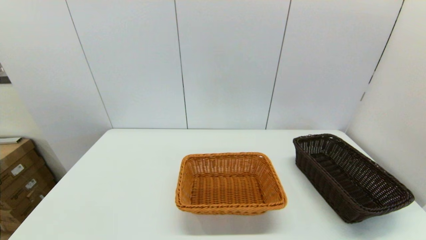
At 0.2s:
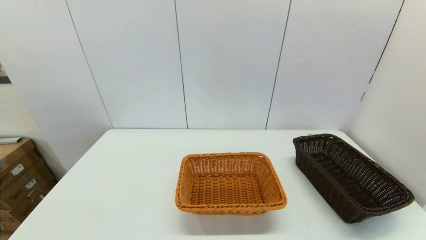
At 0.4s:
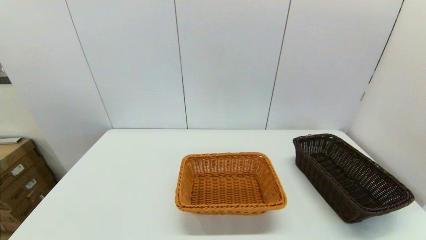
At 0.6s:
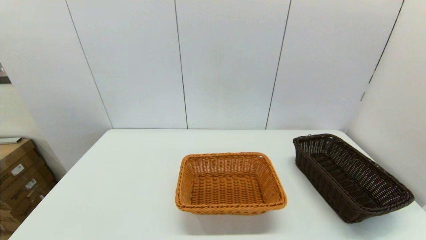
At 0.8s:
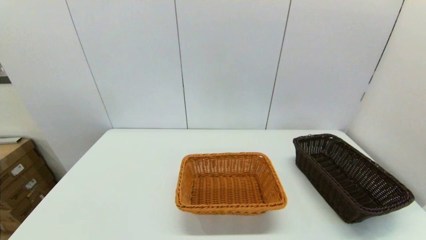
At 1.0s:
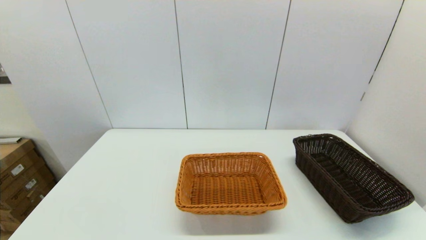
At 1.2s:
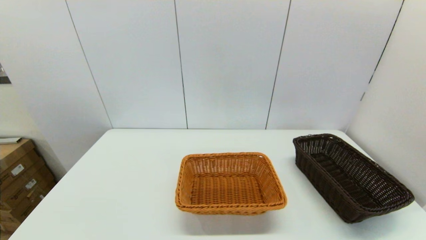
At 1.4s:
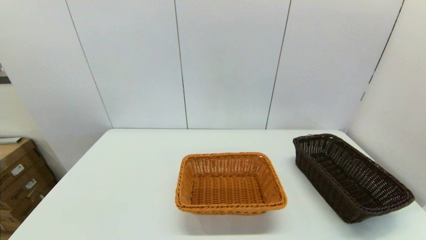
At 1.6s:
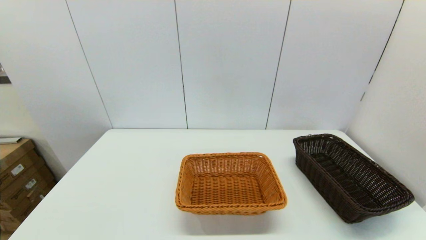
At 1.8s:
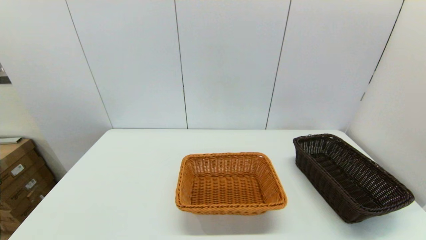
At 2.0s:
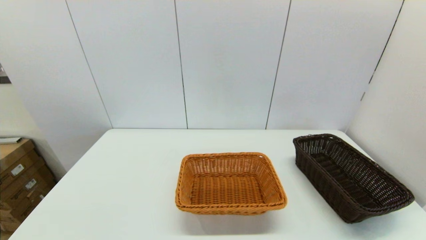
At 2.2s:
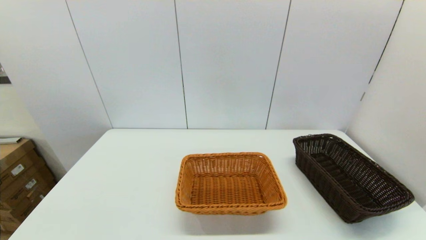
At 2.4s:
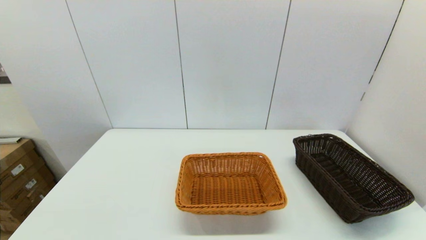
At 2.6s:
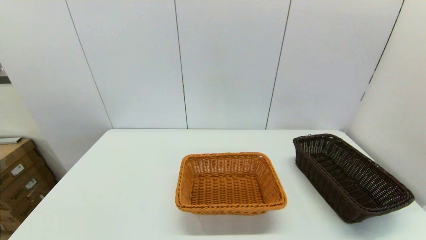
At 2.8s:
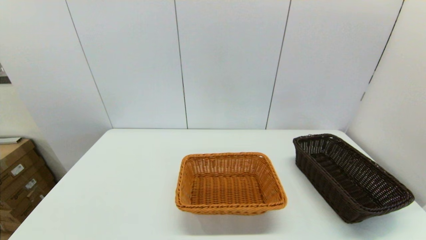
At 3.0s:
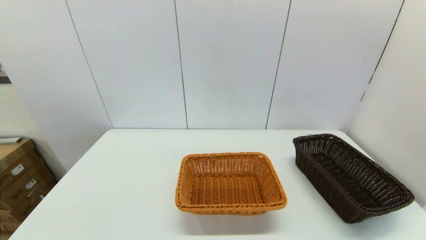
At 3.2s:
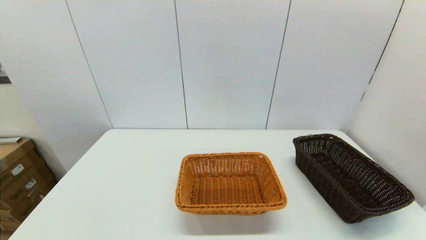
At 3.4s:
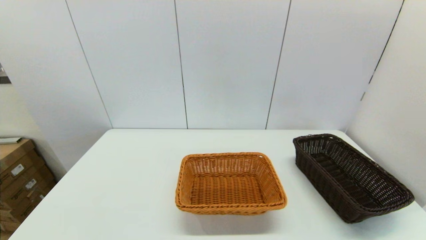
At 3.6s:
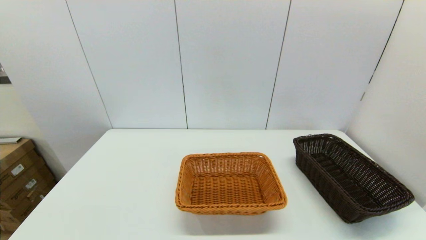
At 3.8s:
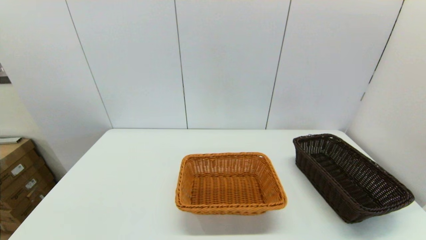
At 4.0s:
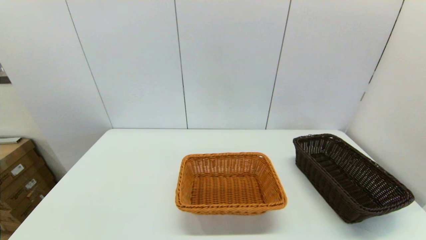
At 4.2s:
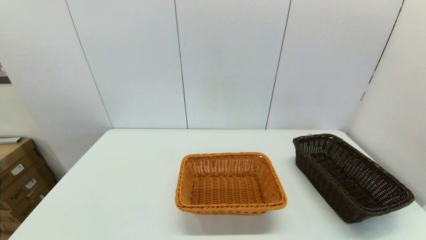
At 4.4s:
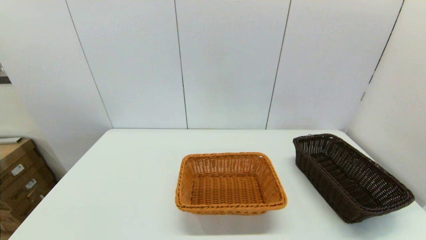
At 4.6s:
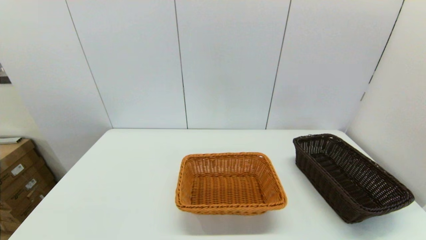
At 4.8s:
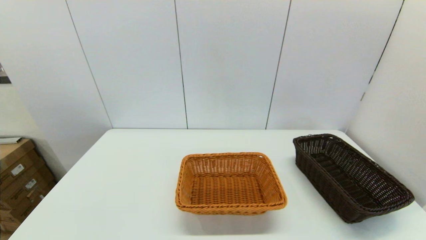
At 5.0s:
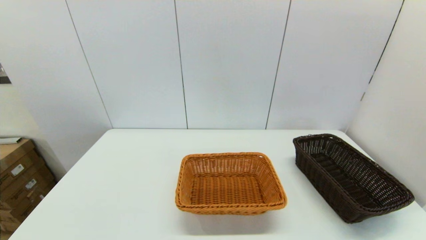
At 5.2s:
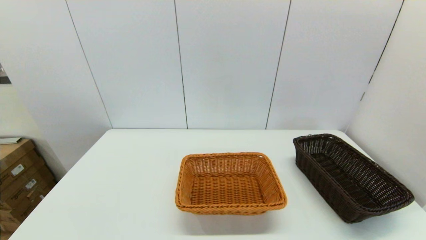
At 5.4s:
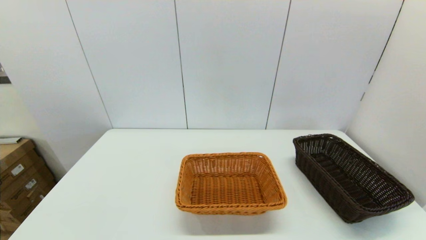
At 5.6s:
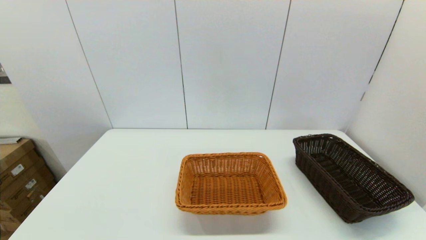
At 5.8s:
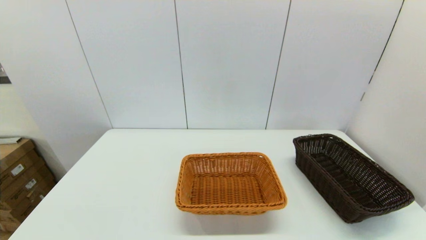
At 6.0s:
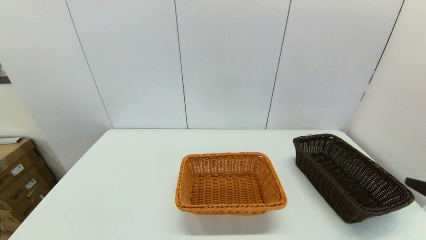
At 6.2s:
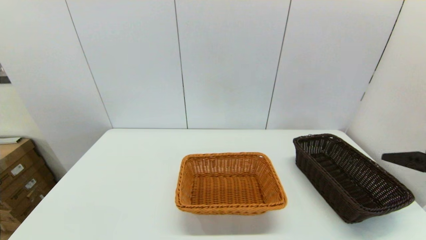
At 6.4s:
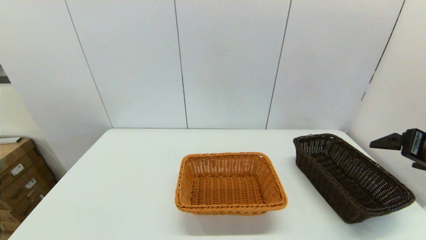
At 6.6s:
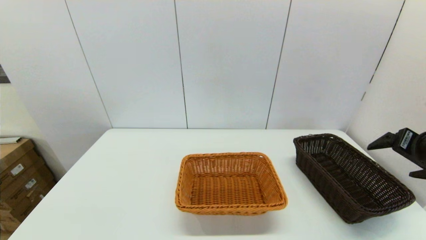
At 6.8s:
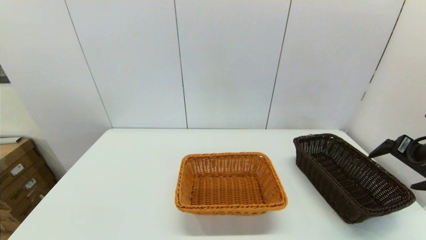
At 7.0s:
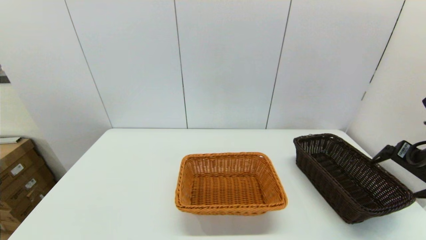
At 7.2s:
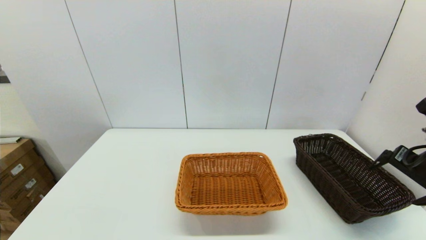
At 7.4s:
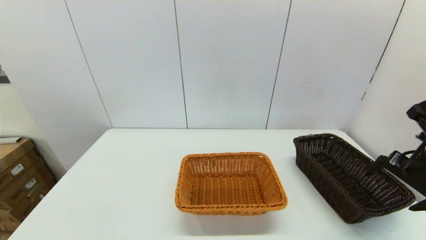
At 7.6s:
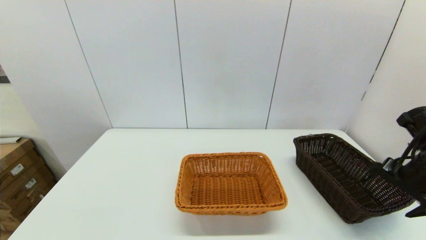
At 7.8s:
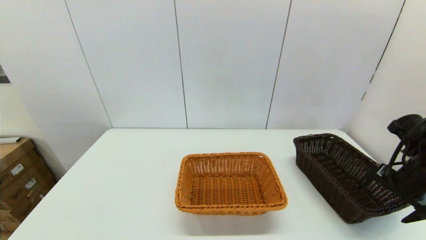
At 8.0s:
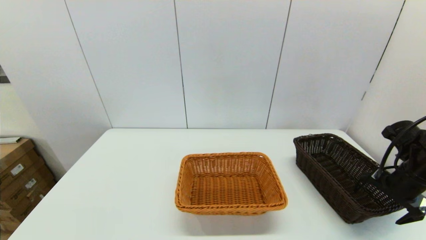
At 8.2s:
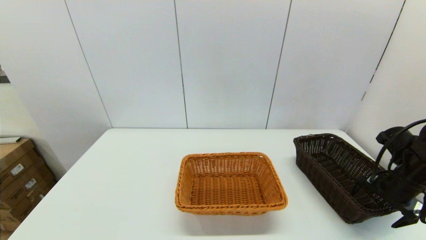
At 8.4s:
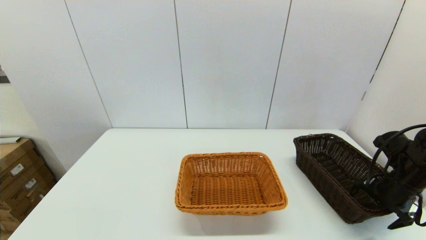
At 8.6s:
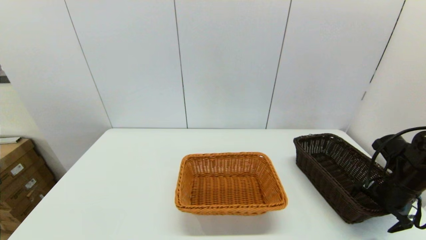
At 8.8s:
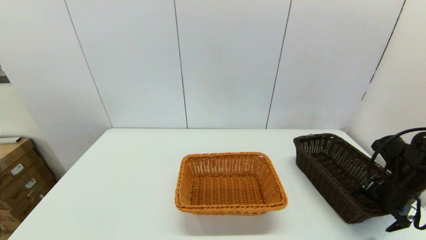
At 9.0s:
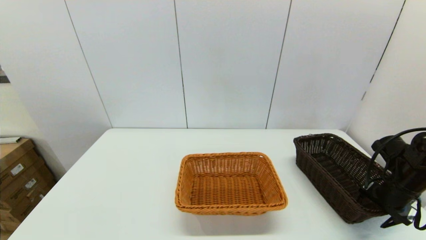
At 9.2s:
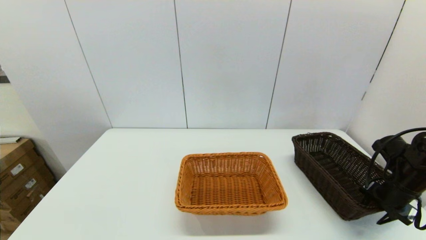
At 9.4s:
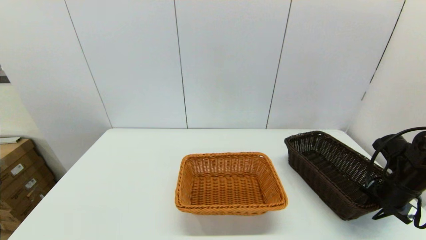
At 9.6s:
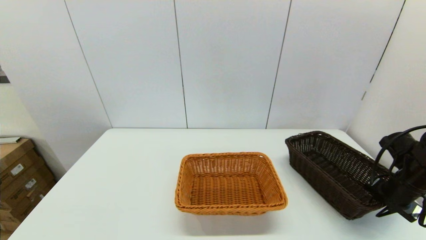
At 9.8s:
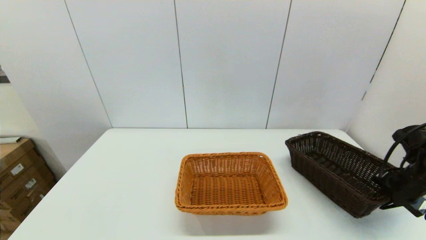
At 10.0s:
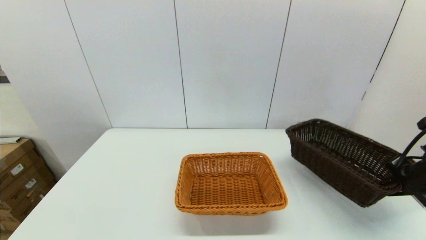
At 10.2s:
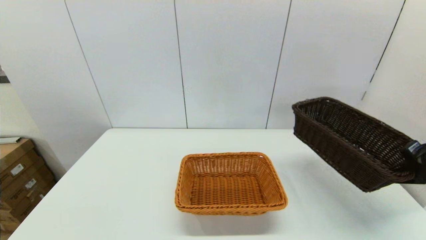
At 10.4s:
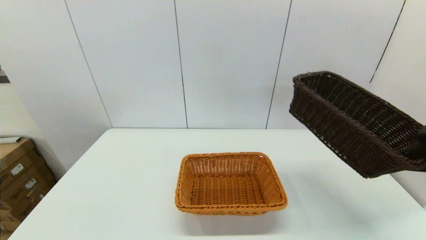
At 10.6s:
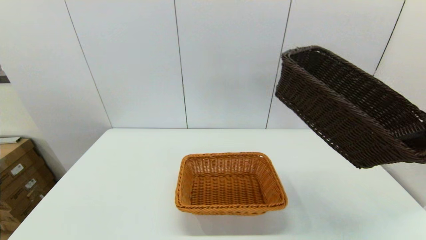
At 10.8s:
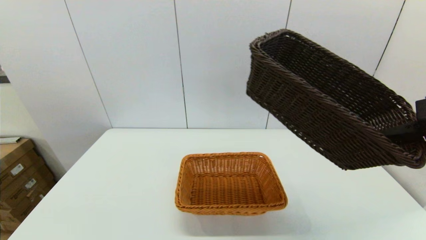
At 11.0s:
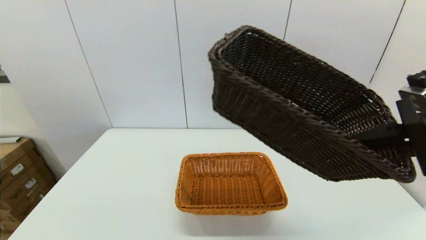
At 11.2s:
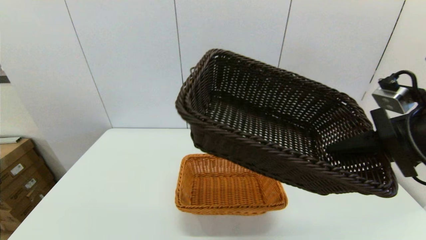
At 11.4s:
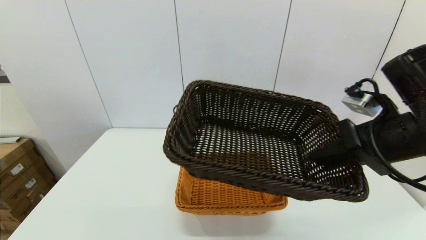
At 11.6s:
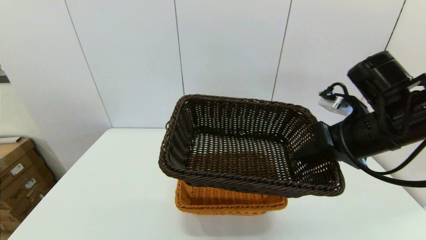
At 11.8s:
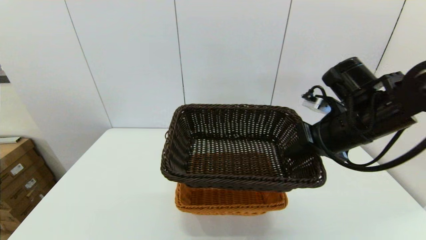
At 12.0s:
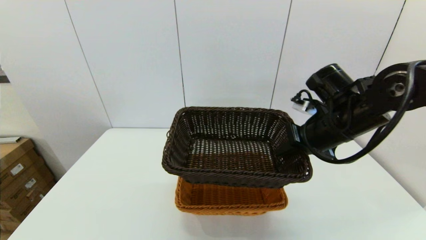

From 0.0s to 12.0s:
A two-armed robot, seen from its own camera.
Task of the whole recording: stack a basket on top of another basket.
Step, from 0.0s to 9.8s: Grasp the dark basket with the right gripper.
From 3.0s to 4.4s: The two grippers keep their place.
From 6.0s to 7.6s: The right gripper goes roughly 20 cm forward and downward.
From 7.6s to 9.0s: The right gripper goes some 10 cm downward, and closes up.
From 9.0s to 10.4s: The right gripper moves upward and backward, some 15 cm, and closes its fingers.
From 10.4s to 12.0s: The right gripper travels to the left and forward by some 20 cm.

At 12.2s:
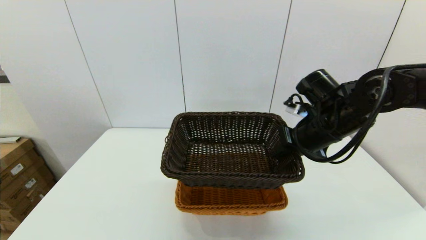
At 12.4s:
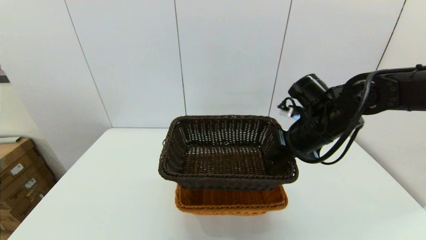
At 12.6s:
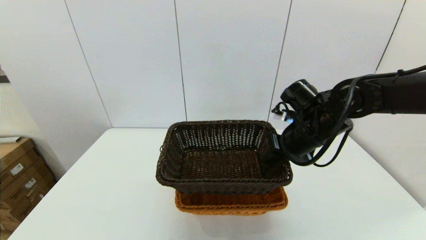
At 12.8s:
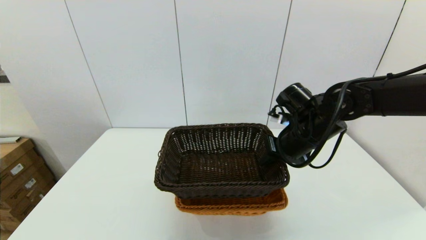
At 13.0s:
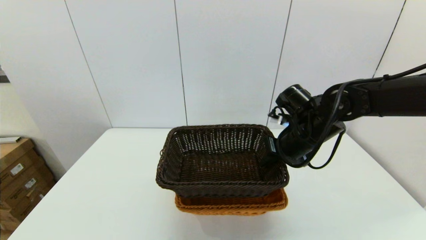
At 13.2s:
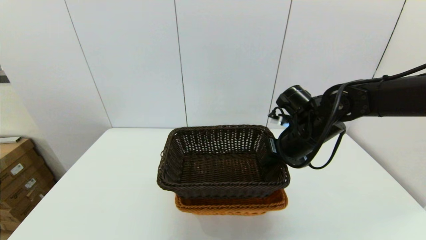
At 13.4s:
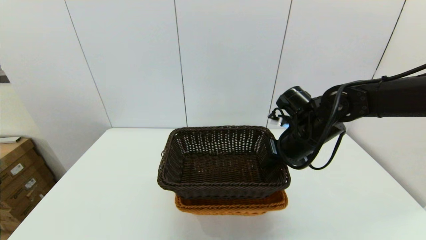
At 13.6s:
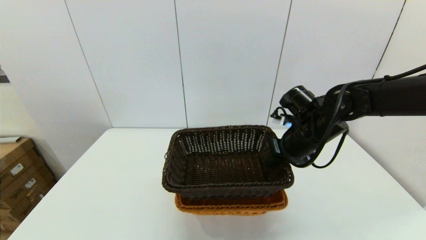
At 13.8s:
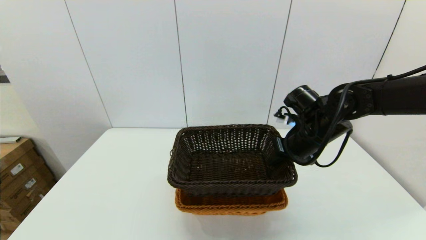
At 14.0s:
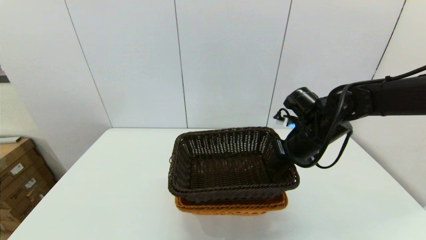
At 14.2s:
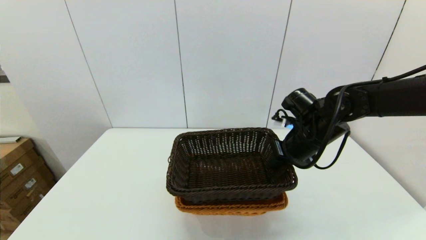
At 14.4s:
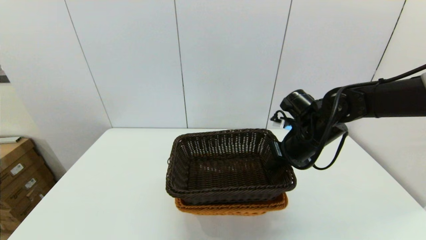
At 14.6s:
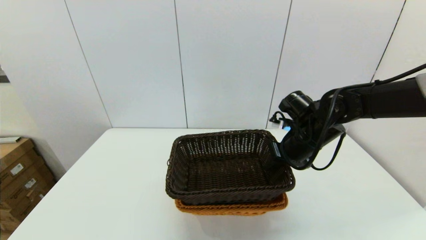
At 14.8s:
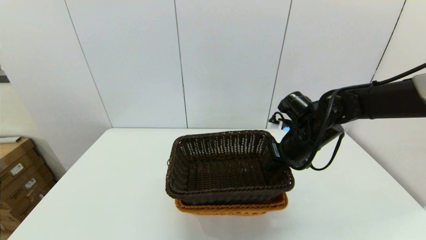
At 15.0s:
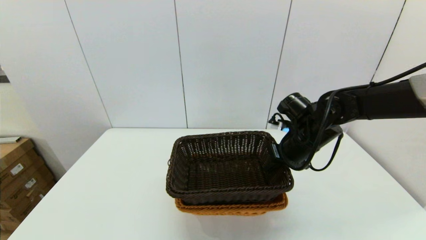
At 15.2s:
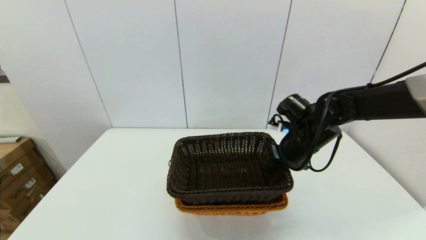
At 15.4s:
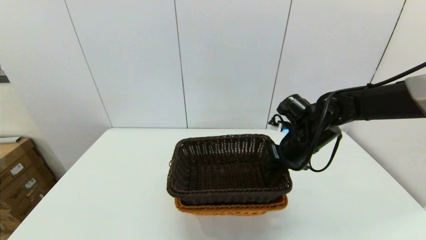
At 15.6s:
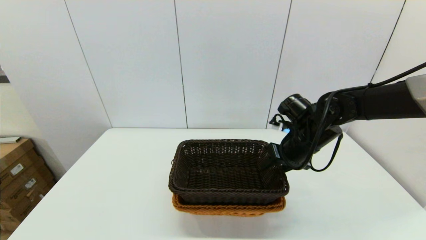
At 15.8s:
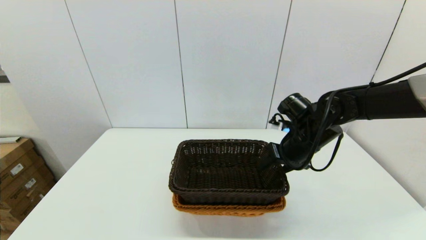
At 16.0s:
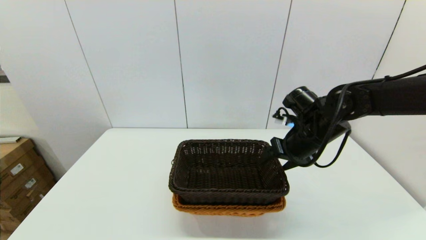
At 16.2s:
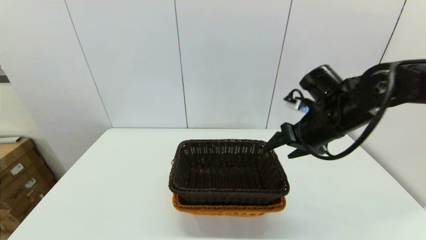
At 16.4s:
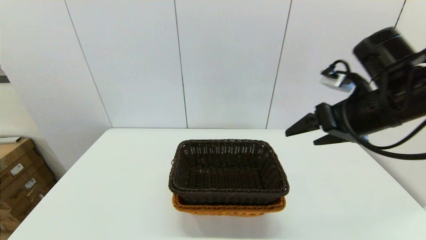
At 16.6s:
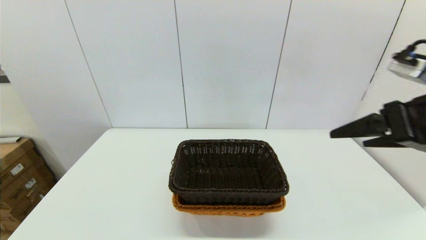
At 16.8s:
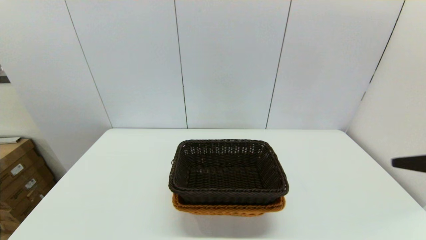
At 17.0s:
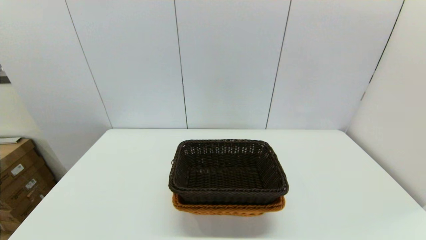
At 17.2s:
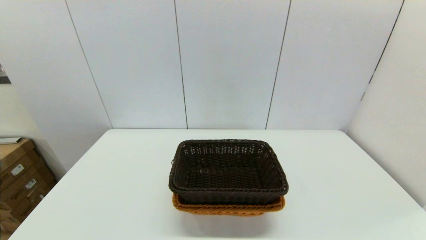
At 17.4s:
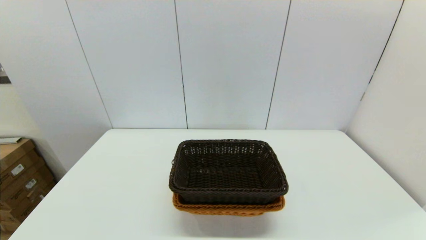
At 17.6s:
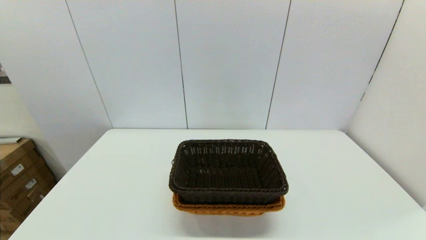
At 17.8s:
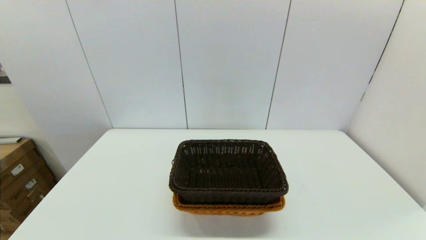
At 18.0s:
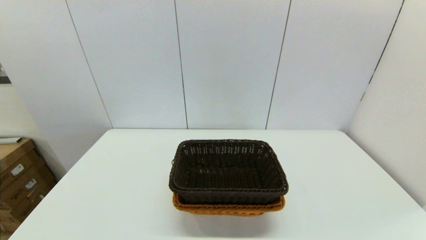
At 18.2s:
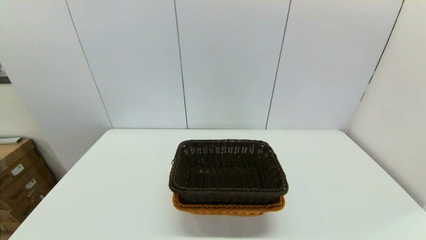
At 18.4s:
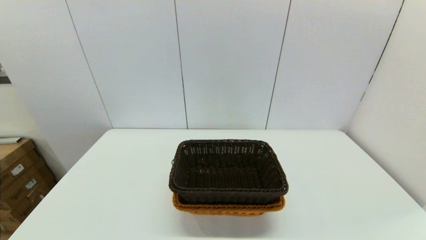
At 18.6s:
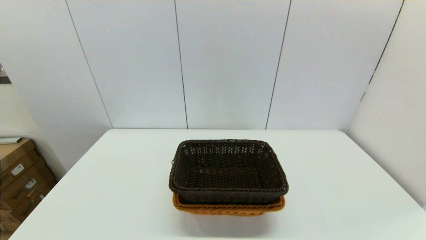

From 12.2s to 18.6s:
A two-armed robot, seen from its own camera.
Task of the whole recording: stack a basket on top of another basket.
Step, from 12.2s to 16.4s: Place the dark basket into the light color basket with the right gripper.
From 12.2s to 13.8s: The grippers make only small movements.
From 13.8s to 15.4s: The grippers make only small movements.
From 15.4s to 17.0s: The right gripper travels backward and to the right by approximately 35 cm, and opens.
